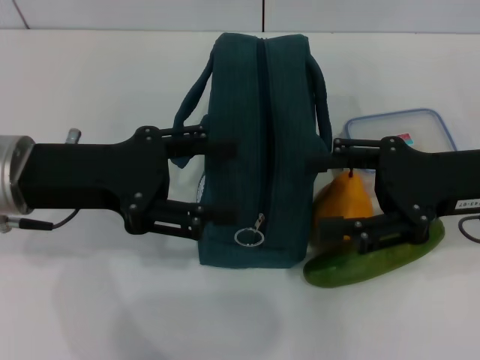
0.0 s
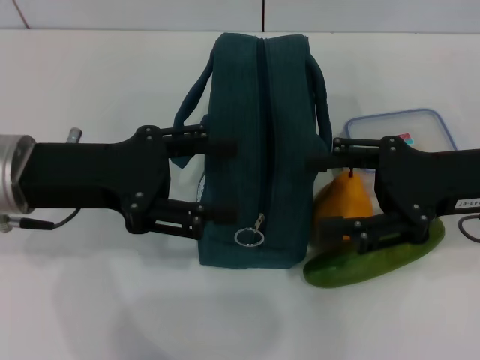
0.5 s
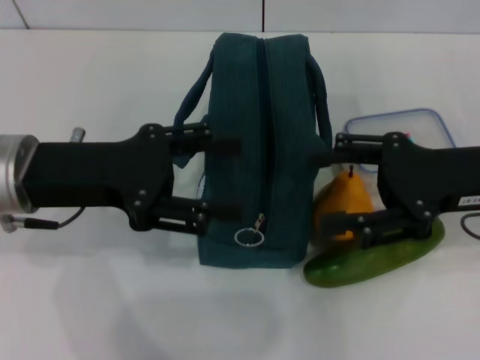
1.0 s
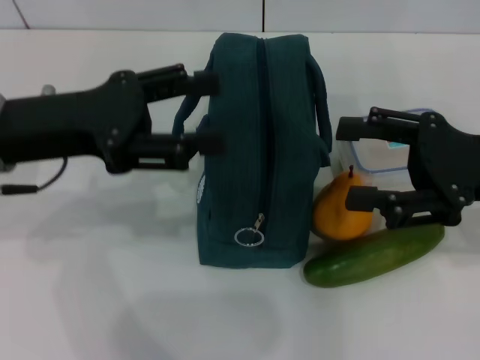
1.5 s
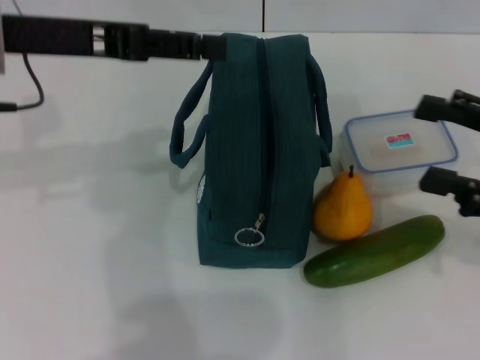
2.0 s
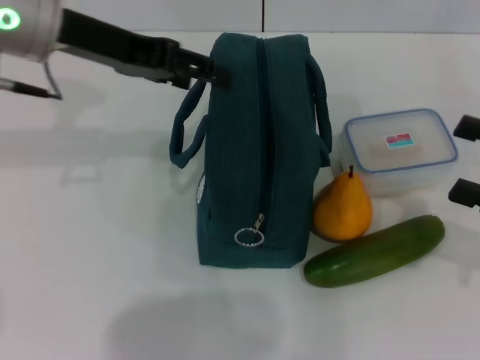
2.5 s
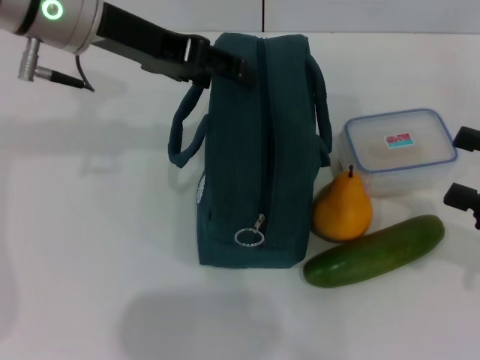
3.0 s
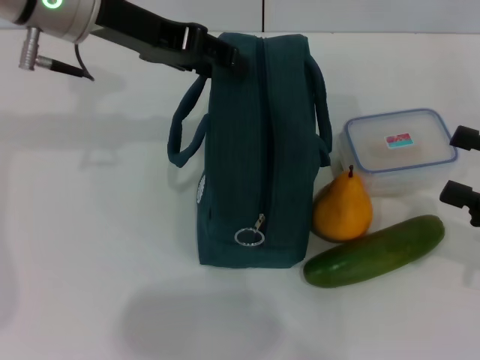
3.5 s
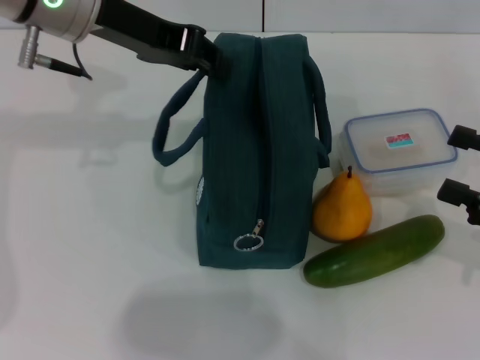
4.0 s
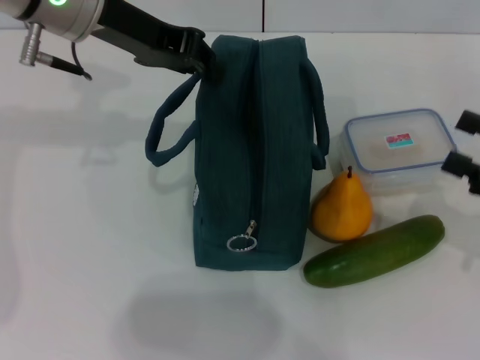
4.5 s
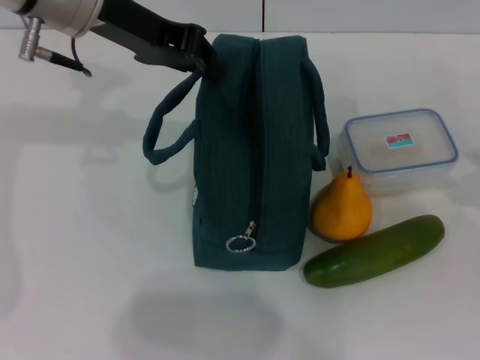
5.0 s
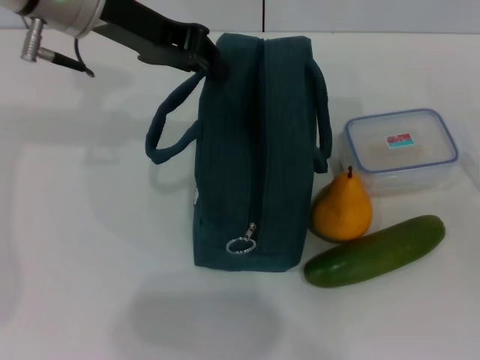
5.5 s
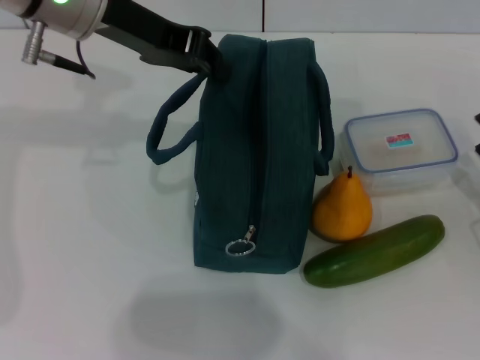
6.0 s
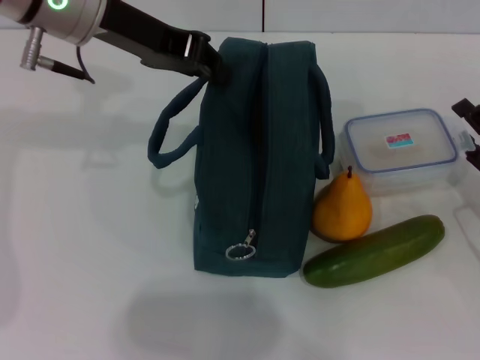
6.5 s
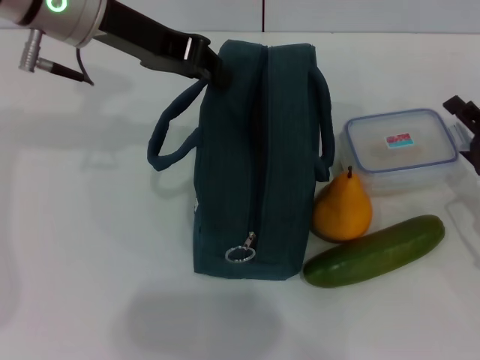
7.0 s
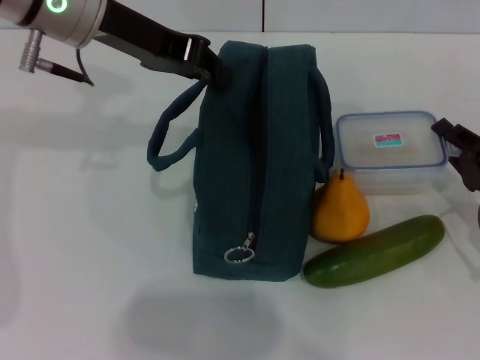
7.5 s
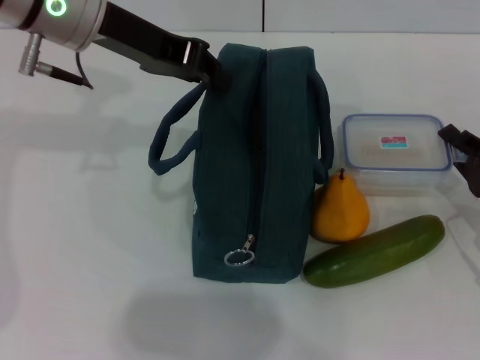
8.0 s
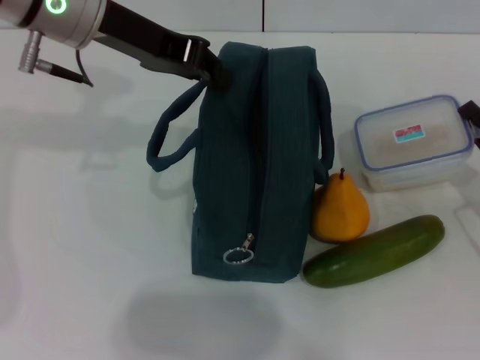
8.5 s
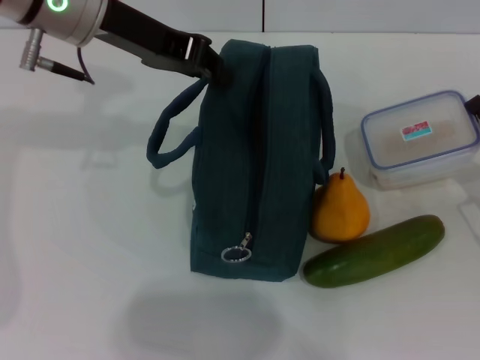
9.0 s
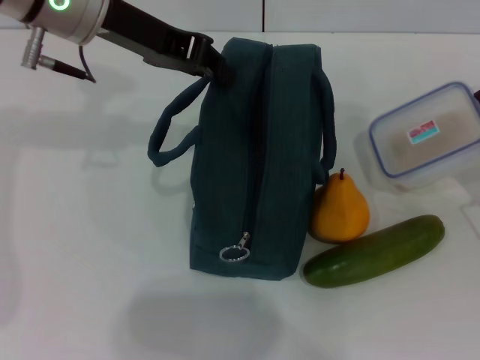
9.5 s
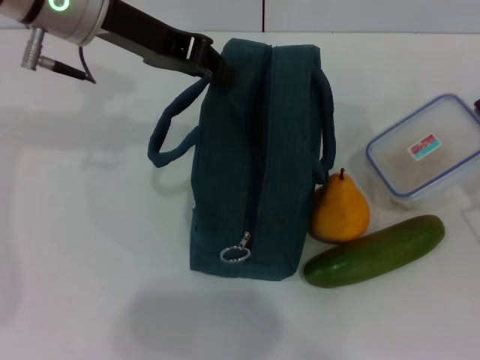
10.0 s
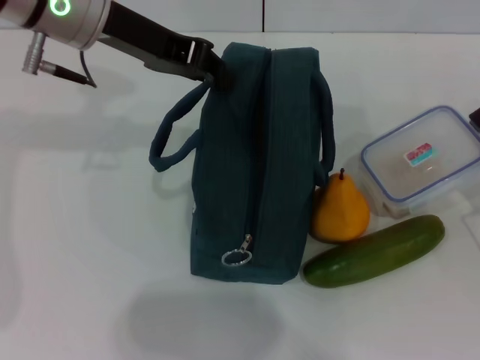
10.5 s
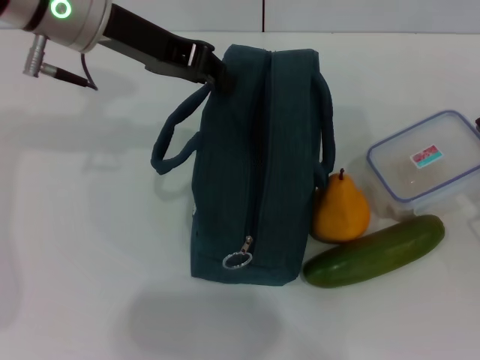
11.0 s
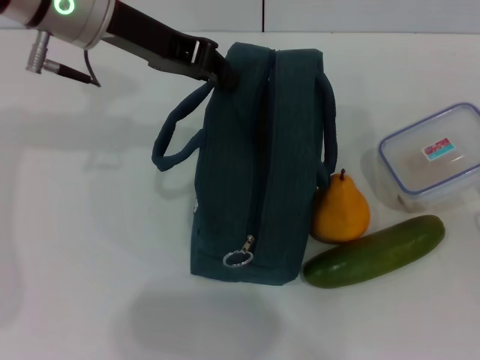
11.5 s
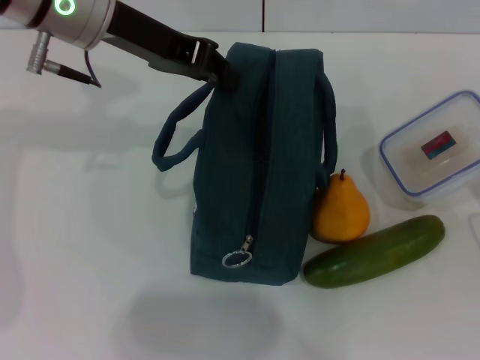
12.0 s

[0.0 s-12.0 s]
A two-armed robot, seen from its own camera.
Step, 0.0 to 4.0 s: Hold the lunch bag with your left hand.
Step, 4.5 to 9.0 s: Pick up the lunch box with your right hand.
0.0 to 2.0 s: The left gripper moves upward and forward, roughly 10 cm. The right gripper travels to the right by about 5 cm.
2.0 to 4.0 s: The right gripper moves about 5 cm. The left gripper goes roughly 10 cm forward and to the right, and closes.
4.0 to 6.0 s: The right gripper moves downward, about 10 cm, while the left gripper closes up.
6.0 to 8.0 s: The right gripper closes its fingers.
8.0 to 12.0 s: The grippers stay close to where they were, moving slightly.

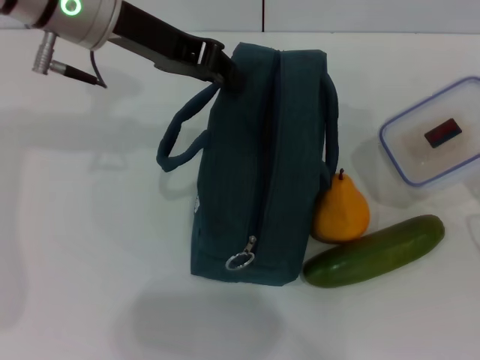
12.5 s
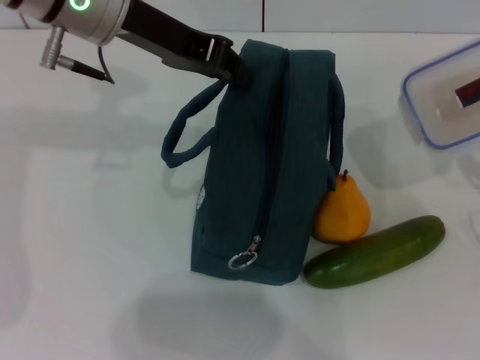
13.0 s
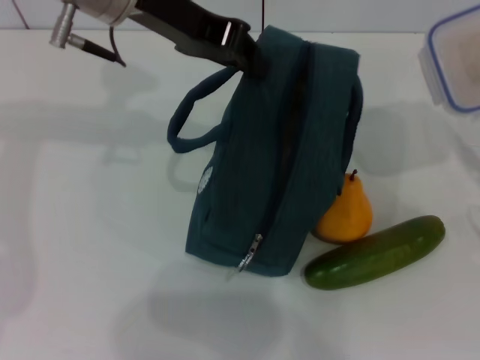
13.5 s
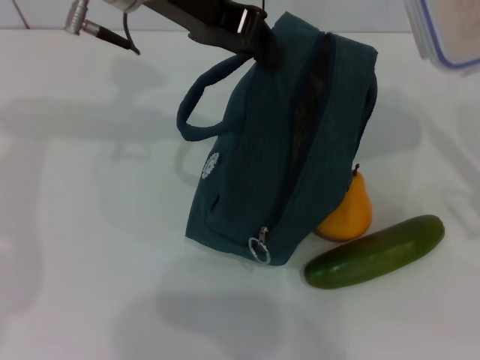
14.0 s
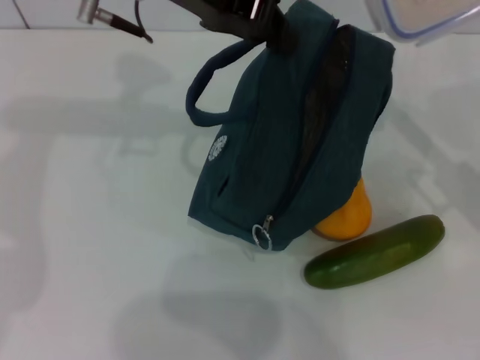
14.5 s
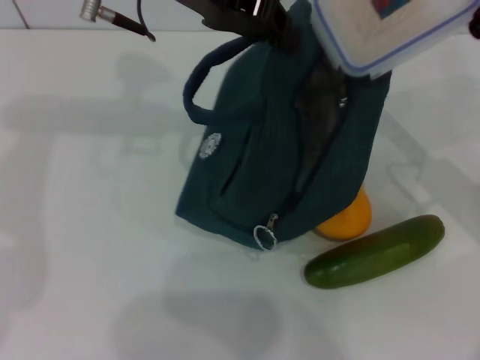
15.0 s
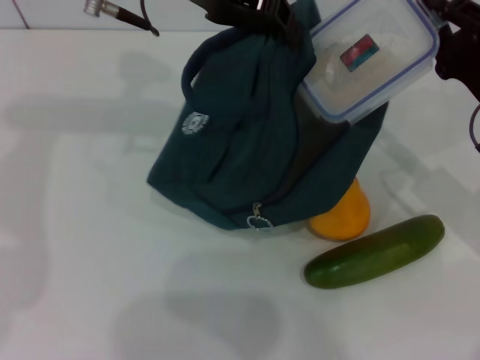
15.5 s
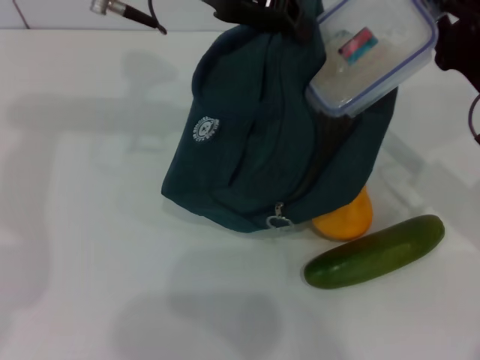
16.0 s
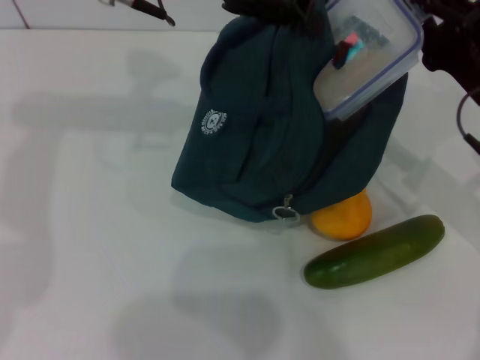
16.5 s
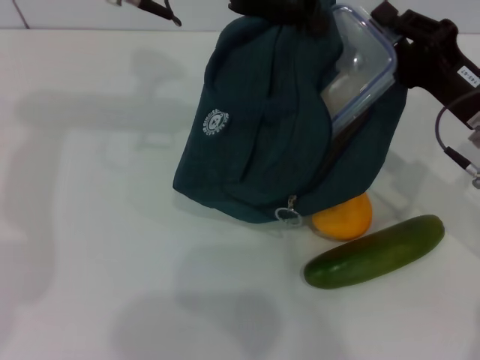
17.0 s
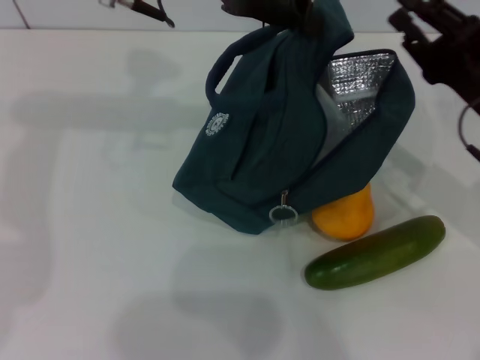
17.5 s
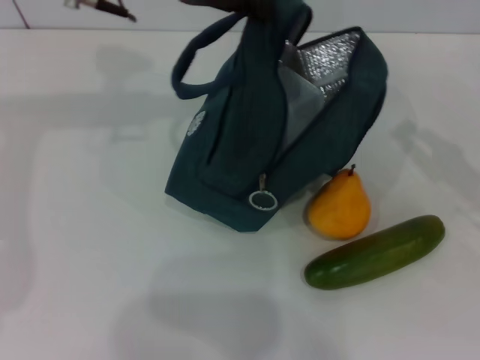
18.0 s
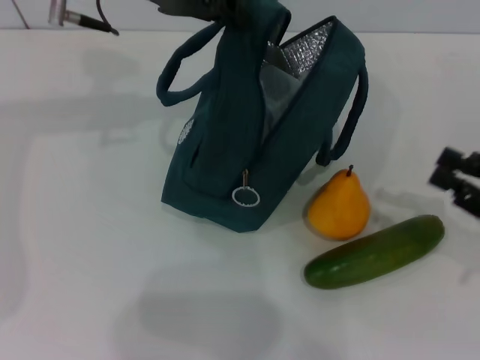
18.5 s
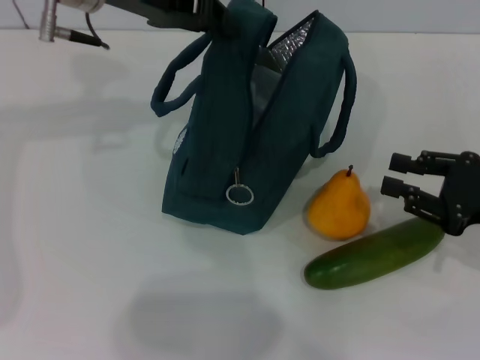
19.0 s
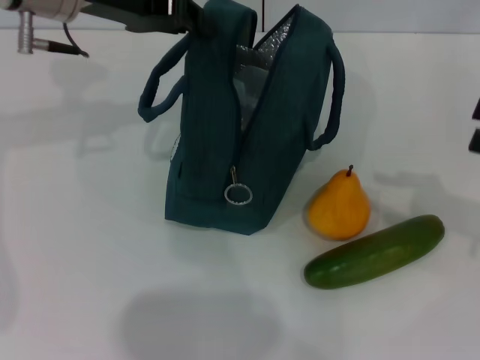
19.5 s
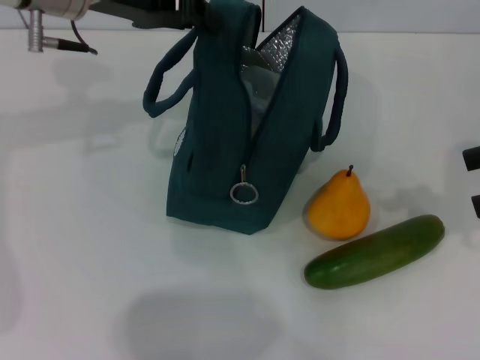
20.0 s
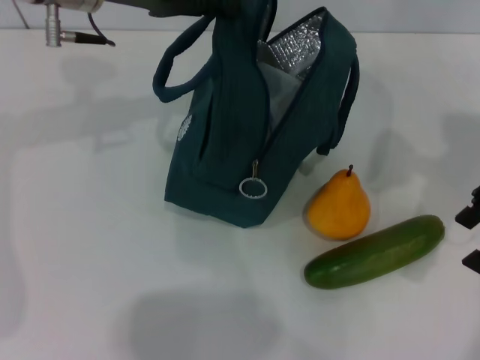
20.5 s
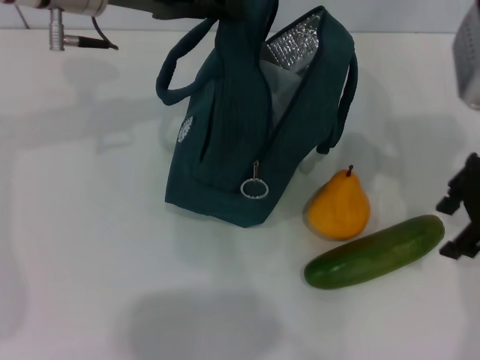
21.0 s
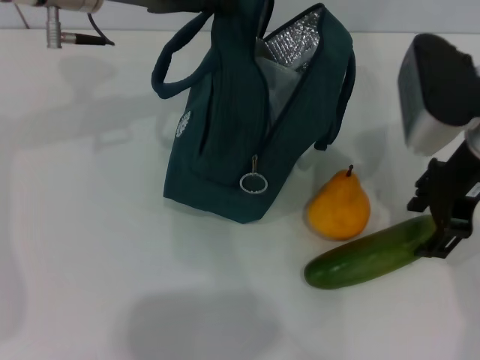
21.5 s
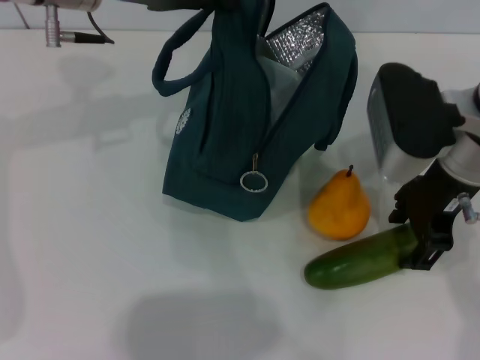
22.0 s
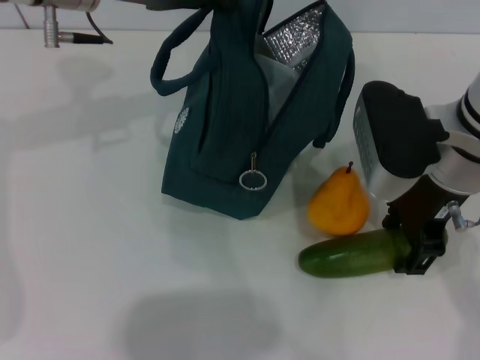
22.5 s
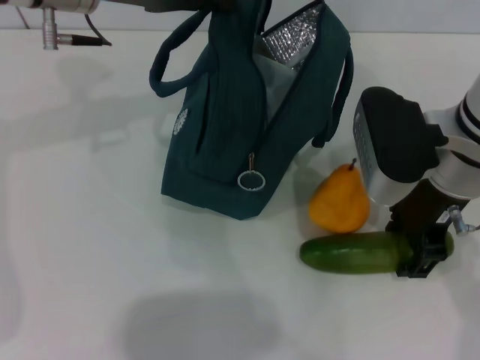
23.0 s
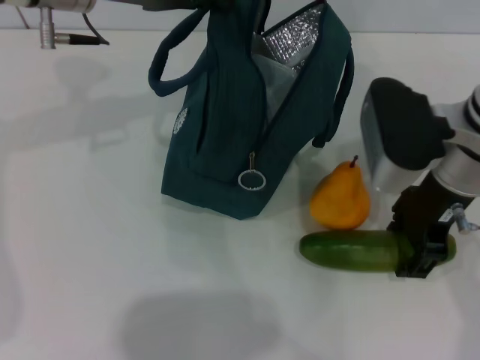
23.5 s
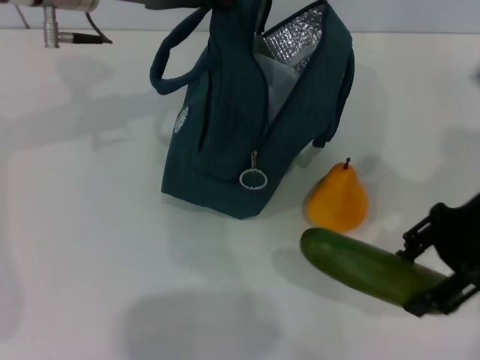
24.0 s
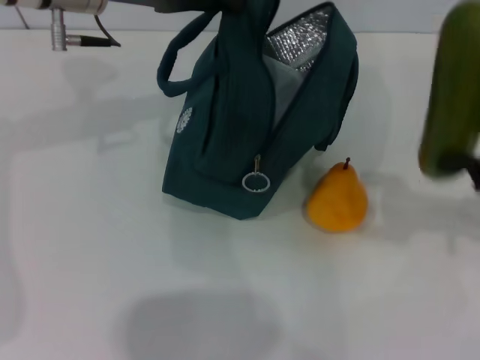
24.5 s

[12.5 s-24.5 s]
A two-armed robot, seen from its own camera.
Step, 12.5 to 17.0 s: Place the lunch box into the lunch bag with your right hand.
Step, 17.5 to 23.5 s: Pick up the cucumber with your right hand.
12.5 to 14.5 s: The right gripper travels upward and forward by approximately 10 cm. The left gripper changes place by approximately 5 cm.
14.5 to 16.5 s: The right gripper changes place by about 5 cm.
16.5 to 18.5 s: The right gripper travels to the right and backward by about 15 cm; the left gripper moves to the left, about 5 cm.
18.5 to 20.5 s: The right gripper heads upward, forward and to the left, covering about 20 cm, and opens up.
20.5 to 22.5 s: The right gripper moves to the left and downward, roughly 15 cm.
22.5 to 24.5 s: The right gripper is displaced to the right by about 15 cm.

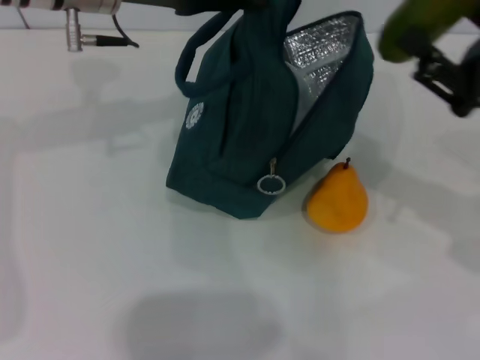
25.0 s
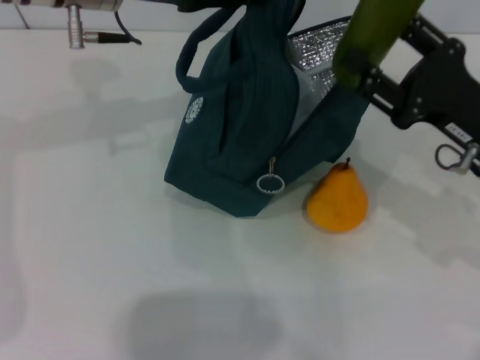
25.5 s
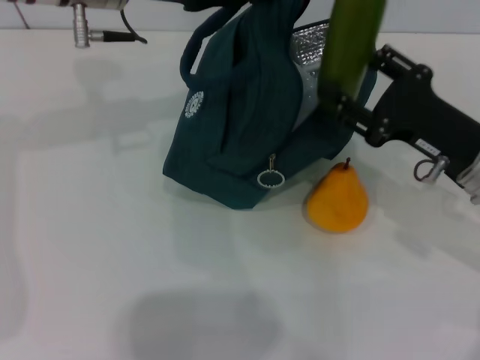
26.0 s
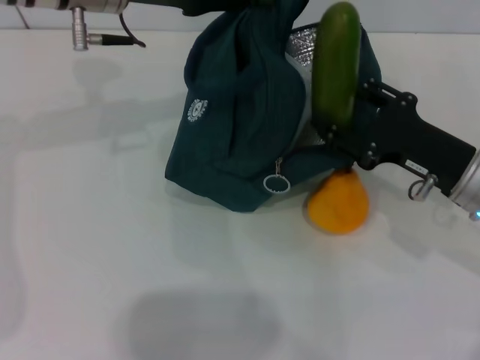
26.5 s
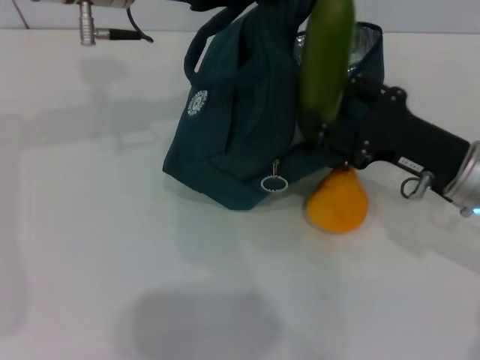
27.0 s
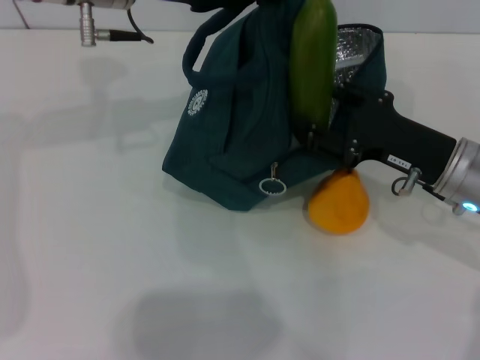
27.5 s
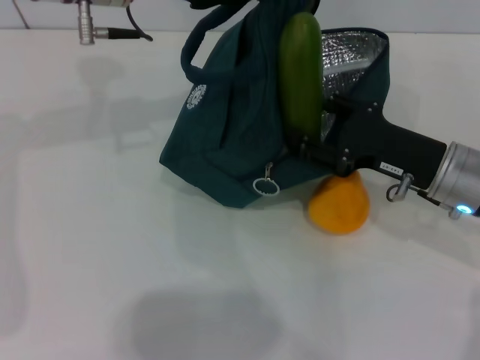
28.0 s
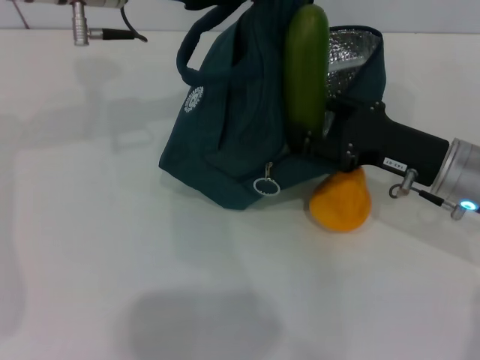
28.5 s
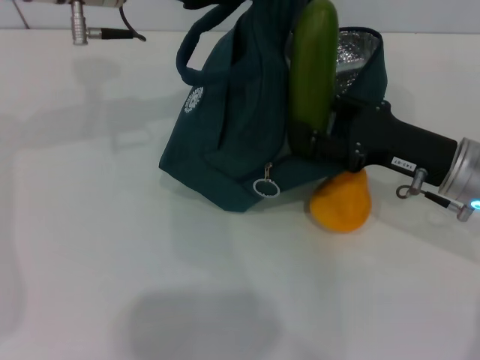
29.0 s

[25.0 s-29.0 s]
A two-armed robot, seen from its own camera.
25.0 to 27.0 s: The right gripper shifts roughly 5 cm downward.
27.0 to 29.0 s: The grippers make only small movements.
